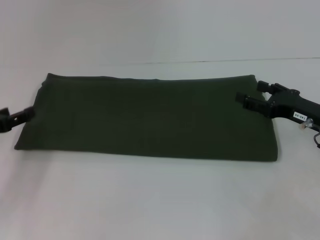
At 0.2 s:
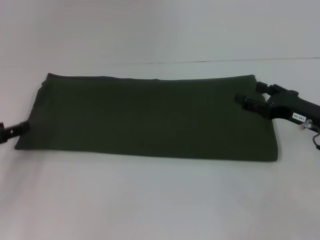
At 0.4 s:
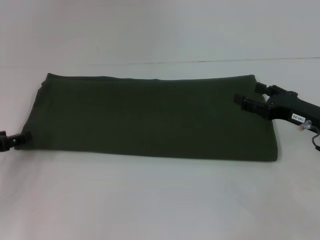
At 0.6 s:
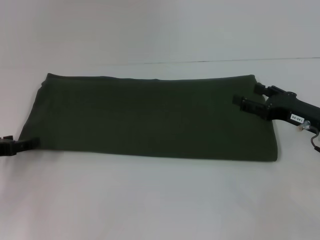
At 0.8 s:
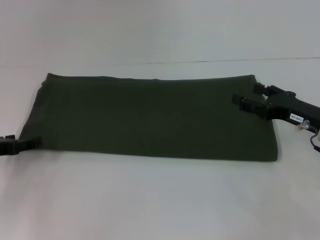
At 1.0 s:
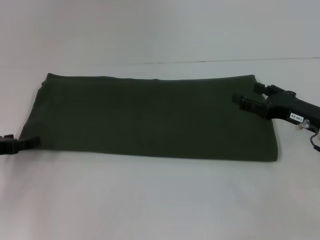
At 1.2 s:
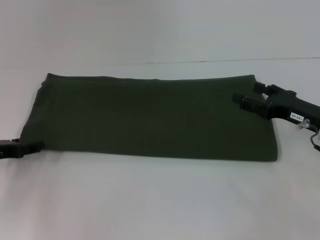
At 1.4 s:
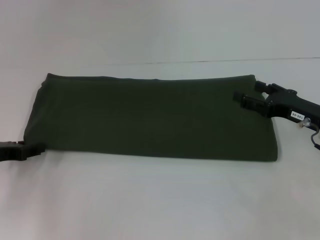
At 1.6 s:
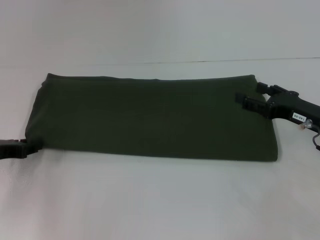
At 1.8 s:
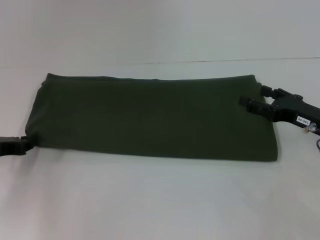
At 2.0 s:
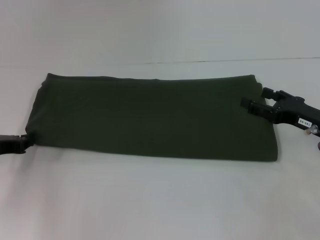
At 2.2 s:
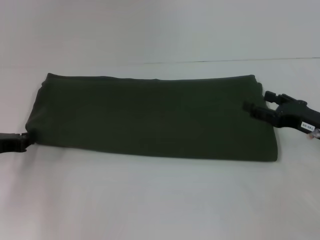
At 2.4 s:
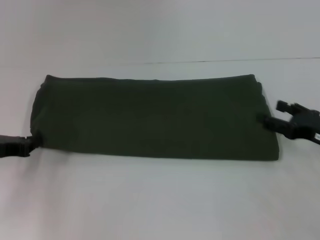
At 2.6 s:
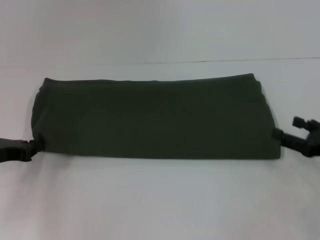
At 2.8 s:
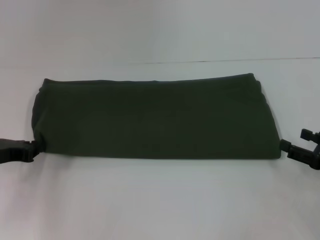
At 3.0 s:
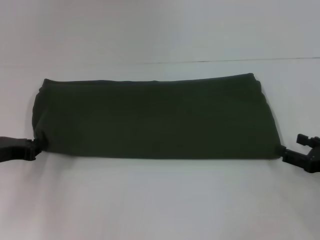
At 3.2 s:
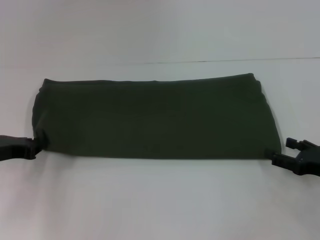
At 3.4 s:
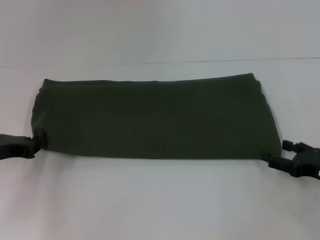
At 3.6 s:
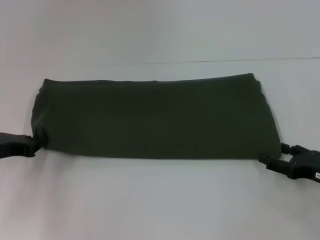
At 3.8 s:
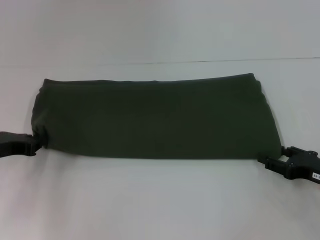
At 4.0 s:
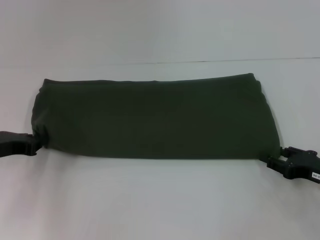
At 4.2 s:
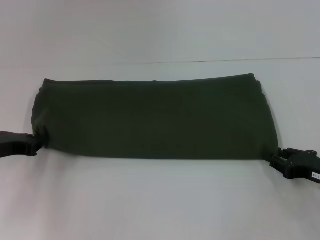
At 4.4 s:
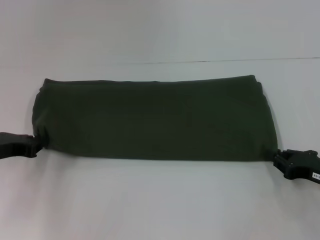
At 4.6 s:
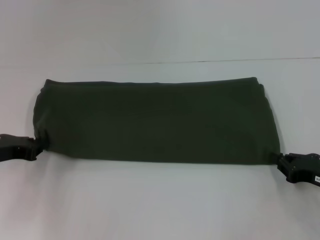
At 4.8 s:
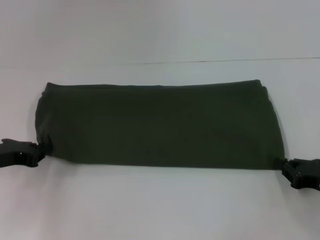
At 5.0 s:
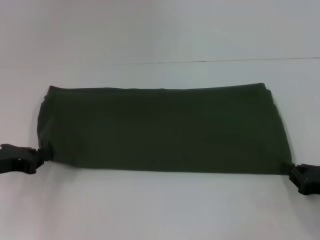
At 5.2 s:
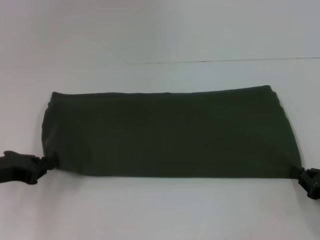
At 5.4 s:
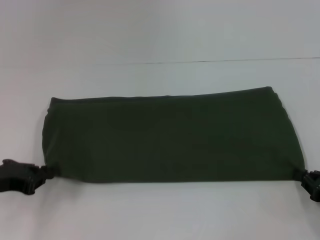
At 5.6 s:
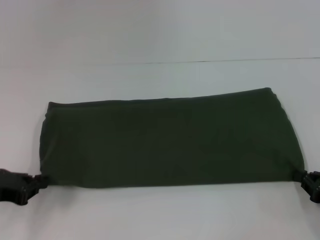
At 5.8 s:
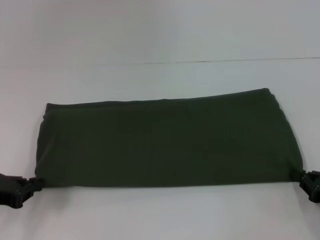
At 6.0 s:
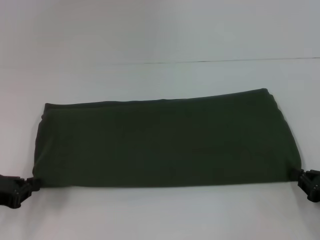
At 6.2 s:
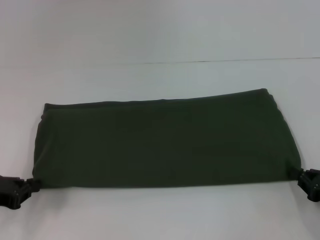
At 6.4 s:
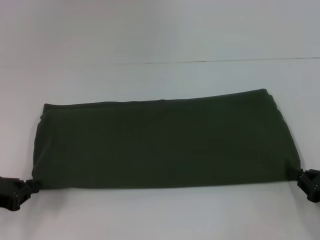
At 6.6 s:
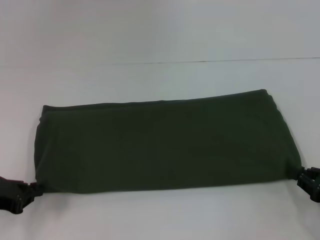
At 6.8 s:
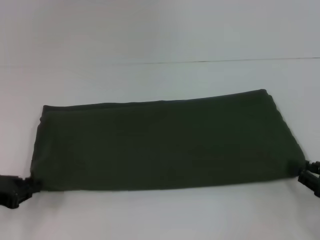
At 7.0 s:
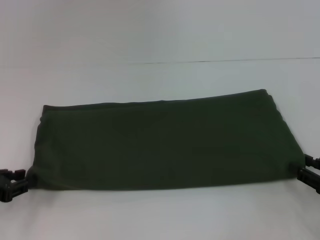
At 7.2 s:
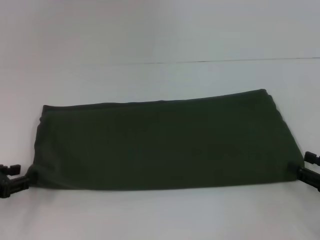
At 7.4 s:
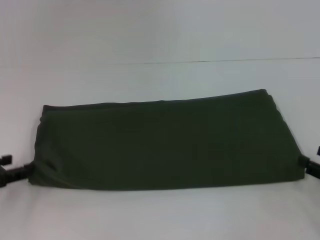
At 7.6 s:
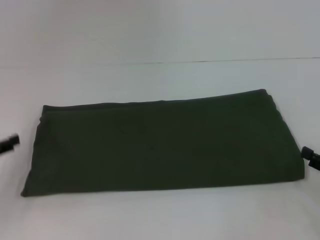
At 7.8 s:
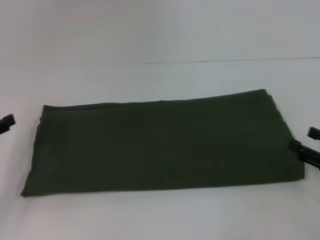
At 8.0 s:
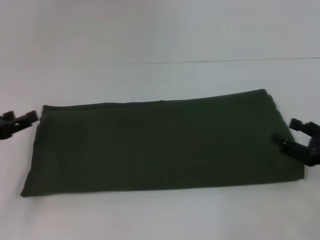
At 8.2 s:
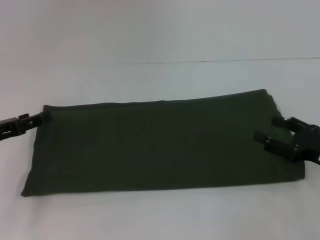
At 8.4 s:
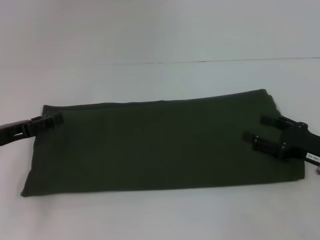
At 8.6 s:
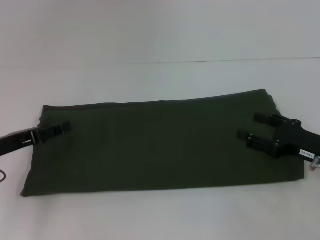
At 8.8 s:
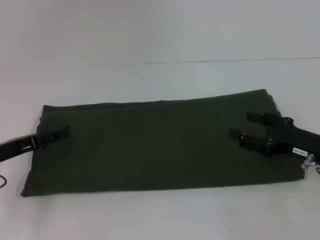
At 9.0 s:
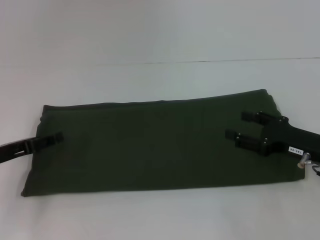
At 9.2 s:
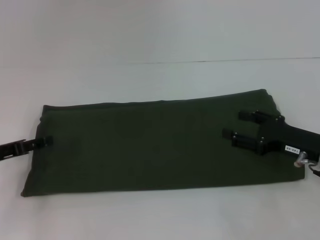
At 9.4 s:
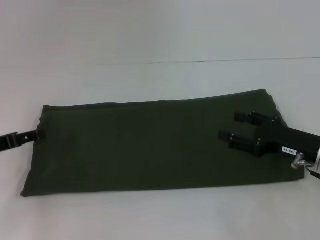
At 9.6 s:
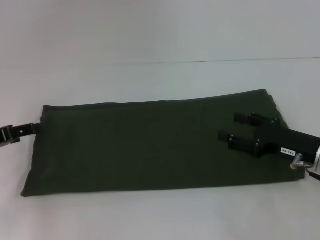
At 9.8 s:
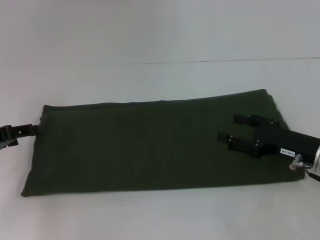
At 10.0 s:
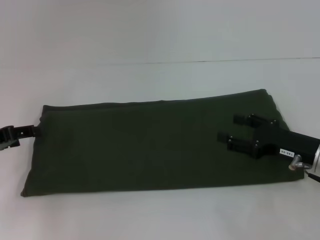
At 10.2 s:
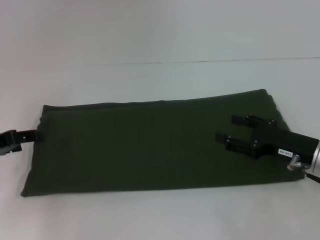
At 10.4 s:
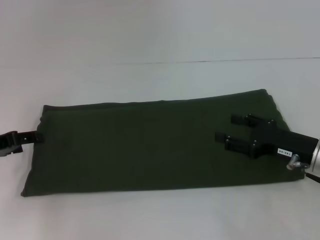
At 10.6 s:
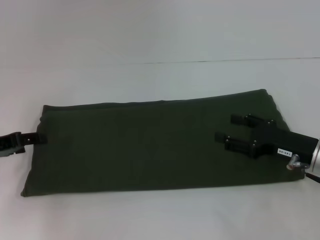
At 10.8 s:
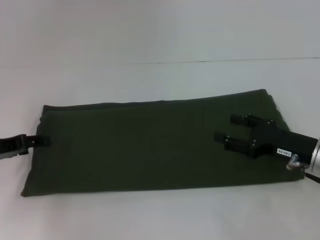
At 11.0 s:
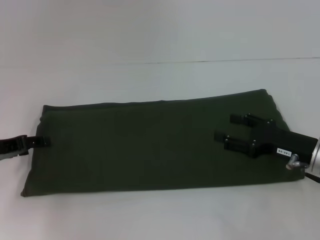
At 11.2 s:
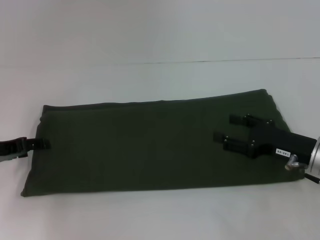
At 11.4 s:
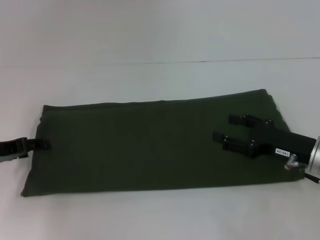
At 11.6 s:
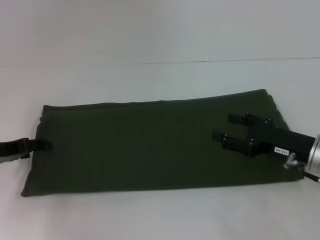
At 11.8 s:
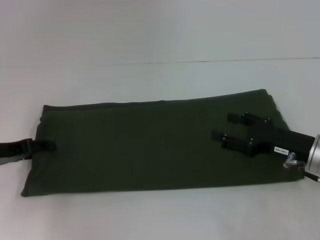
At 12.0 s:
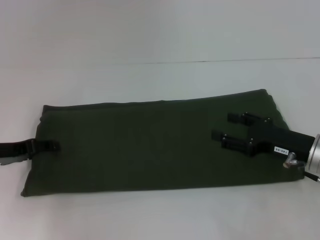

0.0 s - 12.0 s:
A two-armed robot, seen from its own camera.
Step, 0.0 s - 7.4 s: Pull the clothes with your left hand.
Step, 0.0 s - 7.4 s: Pull the clothes with your right hand.
0.0 s - 1.6 s: The grippers move only a little.
1.6 s - 3.0 s: The right gripper is displaced backward and to the right by roughly 10 cm. The left gripper closes its fingers.
3.0 s - 4.4 s: The right gripper closes up.
4.4 s - 6.0 s: The left gripper moves backward, some 5 cm, while the right gripper changes place by about 5 cm.
6.0 s - 7.6 s: The right gripper opens, while the left gripper opens up.
7.6 s - 9.0 s: The left gripper goes approximately 5 cm to the right. Meanwhile the right gripper moves to the left and forward, approximately 10 cm.
9.0 s - 12.0 s: The grippers stay close to where they were, moving slightly.

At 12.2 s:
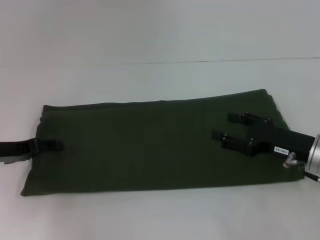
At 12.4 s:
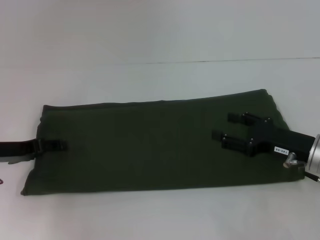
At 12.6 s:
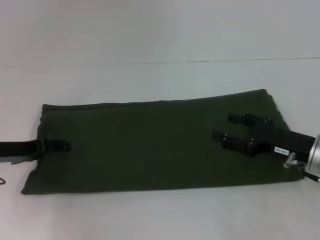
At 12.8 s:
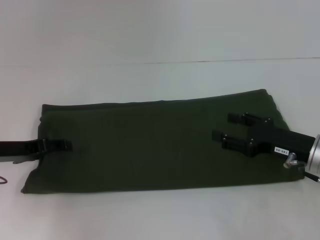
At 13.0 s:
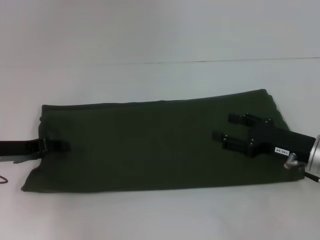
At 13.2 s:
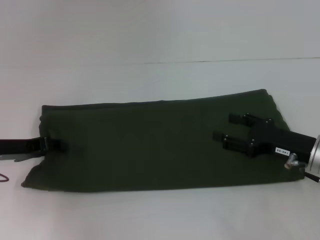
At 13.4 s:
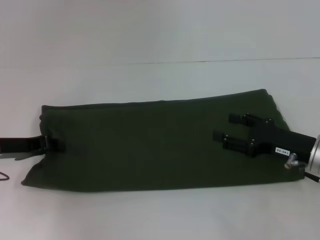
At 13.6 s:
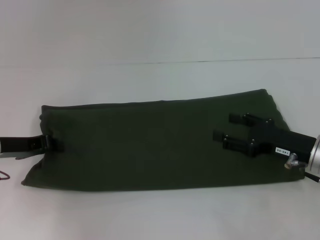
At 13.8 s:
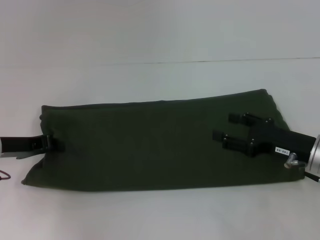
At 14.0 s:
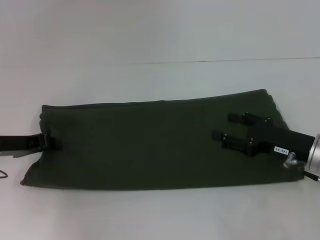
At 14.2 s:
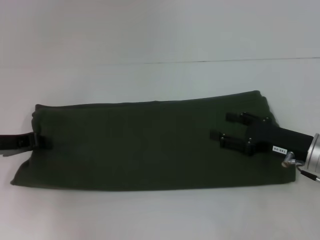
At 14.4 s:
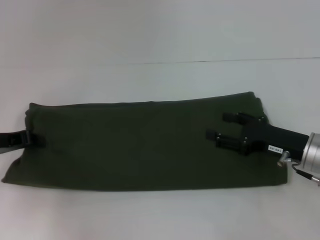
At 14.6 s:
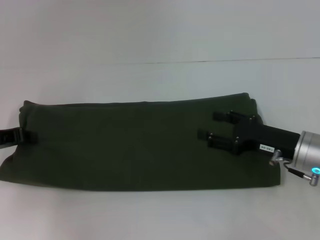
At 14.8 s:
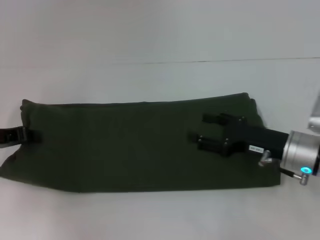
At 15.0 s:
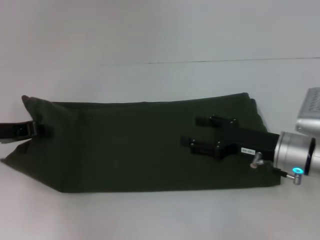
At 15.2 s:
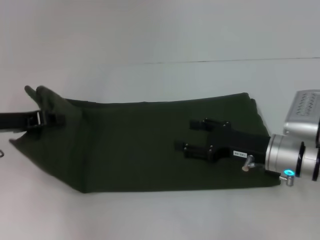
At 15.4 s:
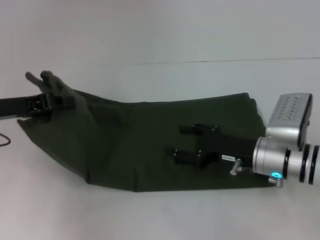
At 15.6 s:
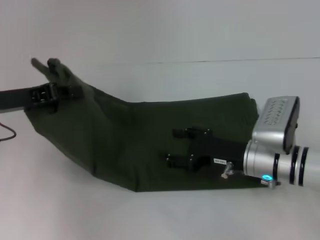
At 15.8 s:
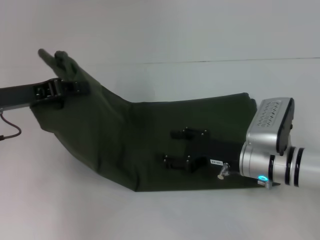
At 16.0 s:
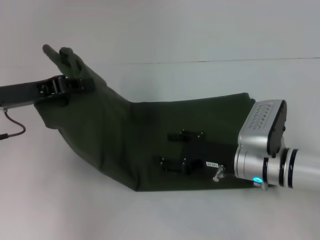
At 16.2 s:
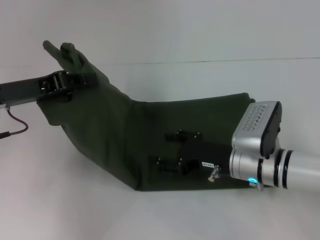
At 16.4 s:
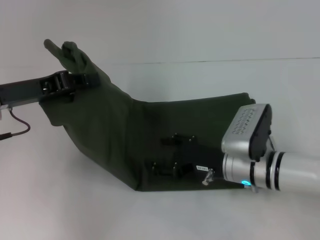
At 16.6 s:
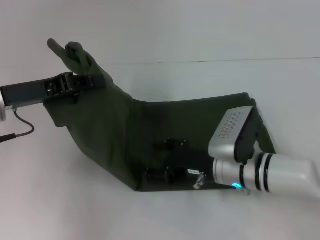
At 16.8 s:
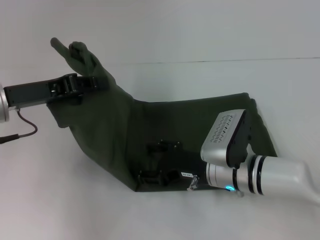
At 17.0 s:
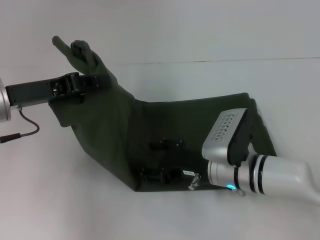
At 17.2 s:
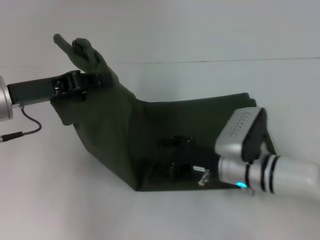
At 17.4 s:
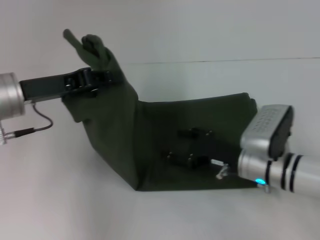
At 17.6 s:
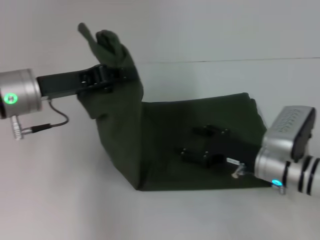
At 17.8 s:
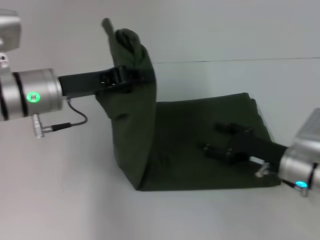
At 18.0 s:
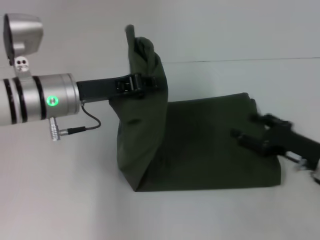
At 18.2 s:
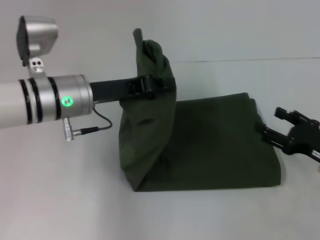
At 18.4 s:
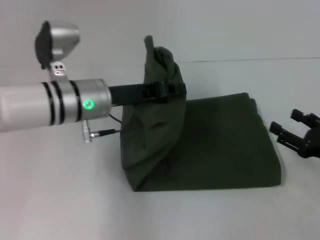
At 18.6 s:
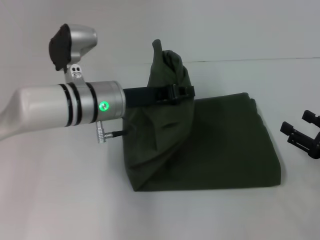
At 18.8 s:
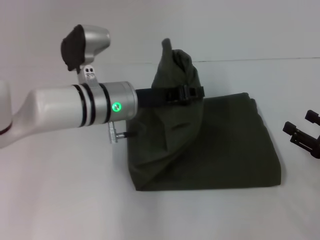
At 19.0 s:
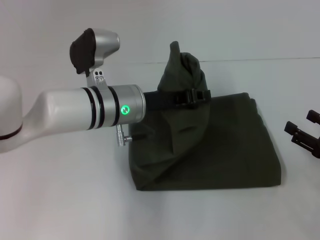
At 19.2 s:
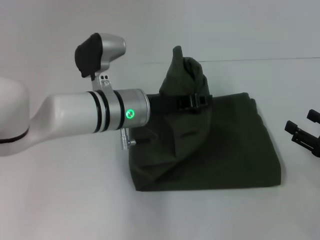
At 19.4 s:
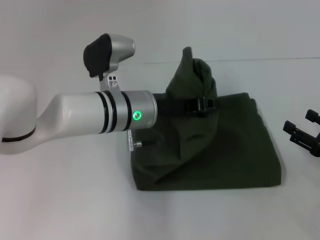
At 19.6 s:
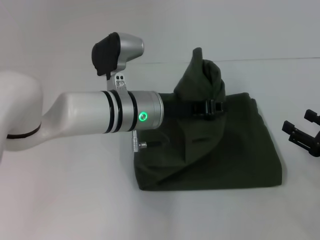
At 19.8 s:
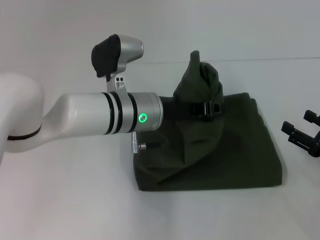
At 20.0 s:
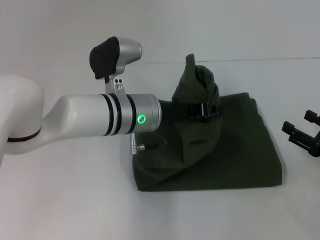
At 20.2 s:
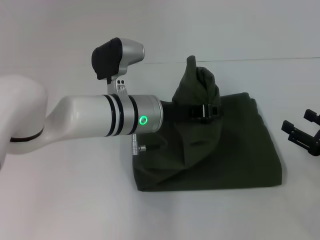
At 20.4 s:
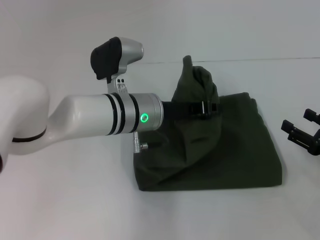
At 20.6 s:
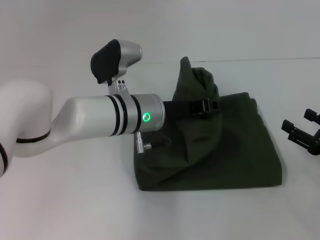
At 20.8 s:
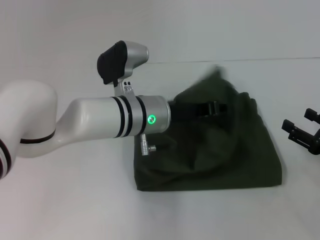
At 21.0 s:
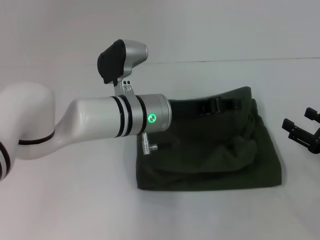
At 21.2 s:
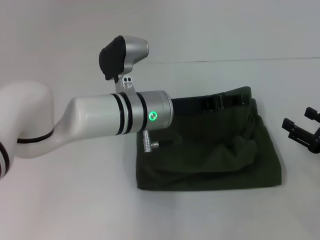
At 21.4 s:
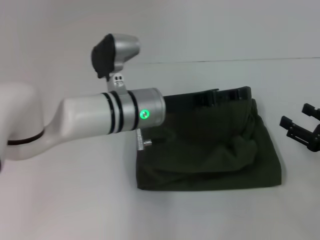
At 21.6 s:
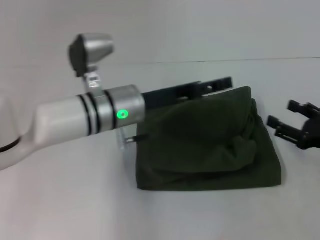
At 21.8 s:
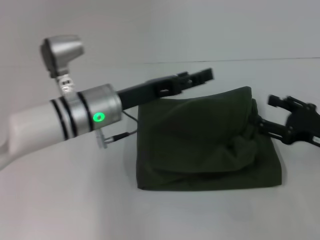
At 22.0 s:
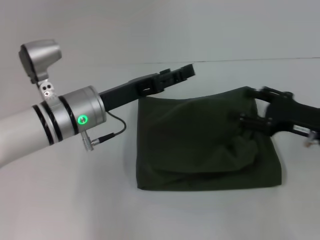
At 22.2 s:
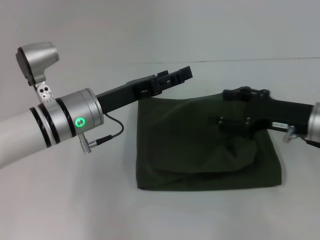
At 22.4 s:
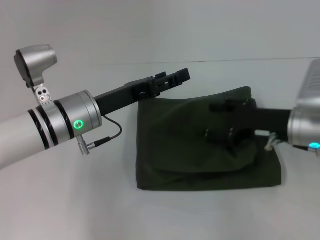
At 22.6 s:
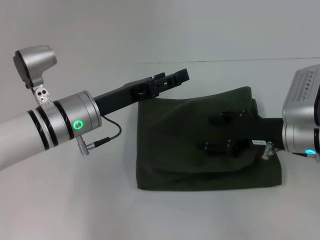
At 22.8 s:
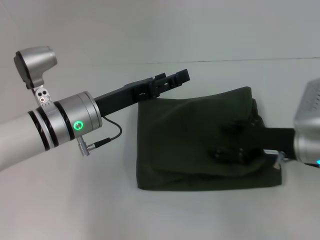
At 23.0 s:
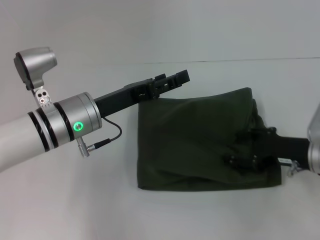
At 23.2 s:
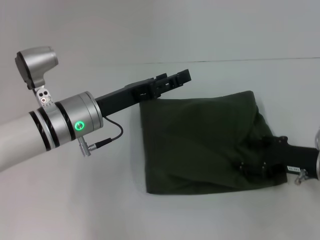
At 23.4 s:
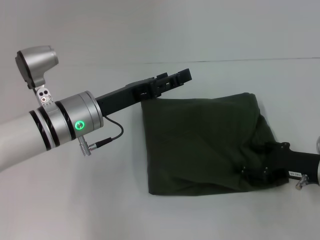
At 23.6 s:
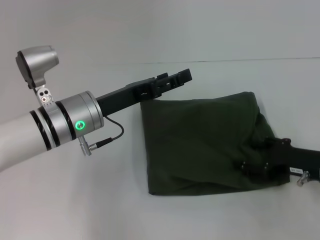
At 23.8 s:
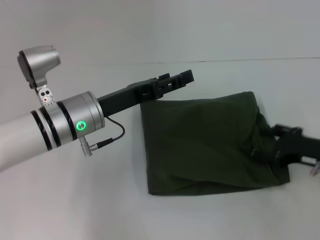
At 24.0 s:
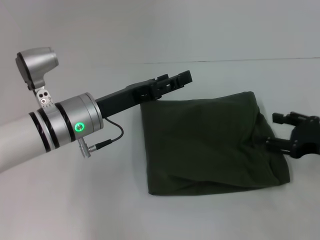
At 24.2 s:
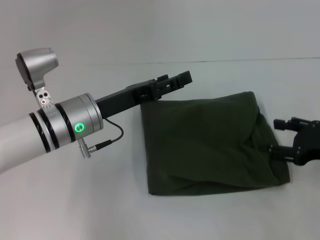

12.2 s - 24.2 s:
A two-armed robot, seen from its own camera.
Step, 12.2 s - 20.8 s: Fold the clothes with your left hand.
12.2 s - 13.8 s: The left gripper closes.
13.8 s - 15.2 s: The right gripper shifts about 5 cm to the left.
15.2 s - 16.6 s: The right gripper goes approximately 5 cm to the left.
16.6 s - 18.2 s: The right gripper is displaced to the right by approximately 20 cm; the left gripper is displaced to the right by about 10 cm.
18.2 s - 19.8 s: The left gripper is displaced to the right by approximately 10 cm.
19.8 s - 21.2 s: The left gripper opens up.
21.2 s - 22.6 s: The left gripper shifts approximately 10 cm to the left. Meanwhile the right gripper travels to the left and forward by approximately 15 cm.
22.6 s - 24.2 s: The right gripper is displaced to the right and backward by about 10 cm.